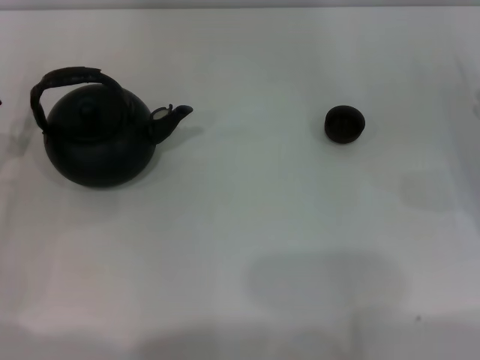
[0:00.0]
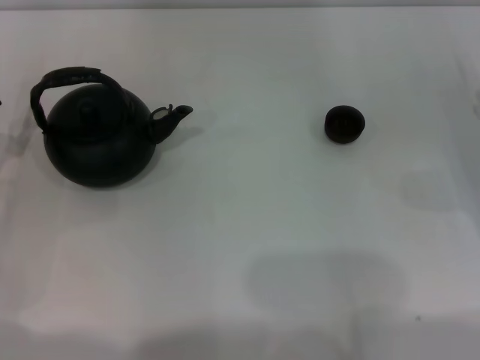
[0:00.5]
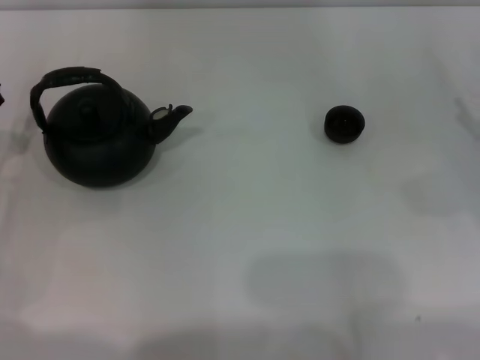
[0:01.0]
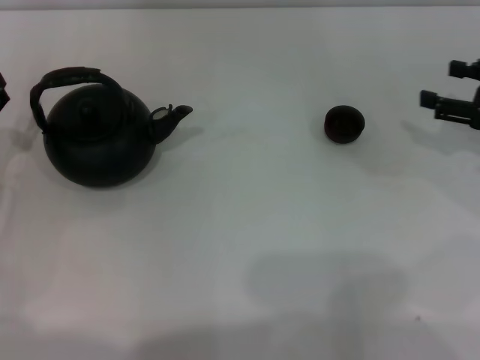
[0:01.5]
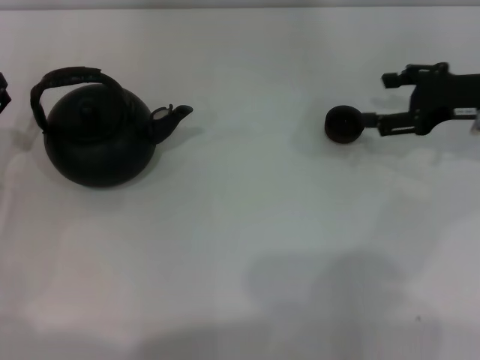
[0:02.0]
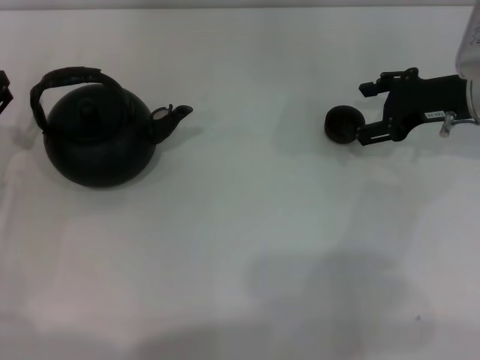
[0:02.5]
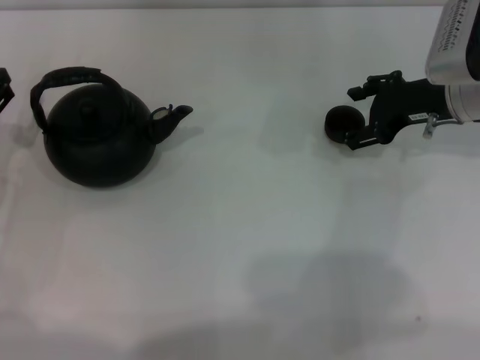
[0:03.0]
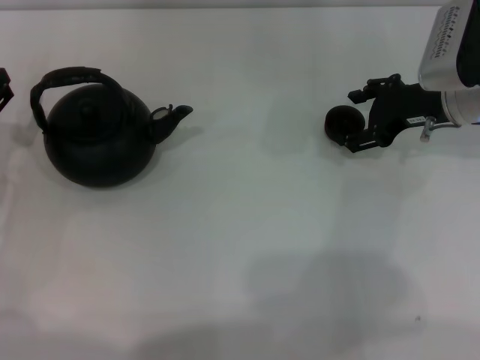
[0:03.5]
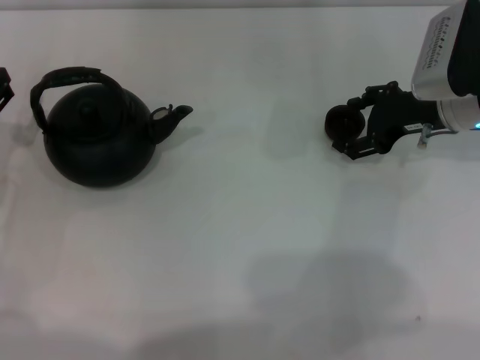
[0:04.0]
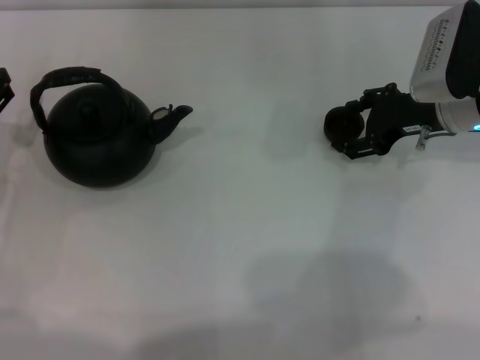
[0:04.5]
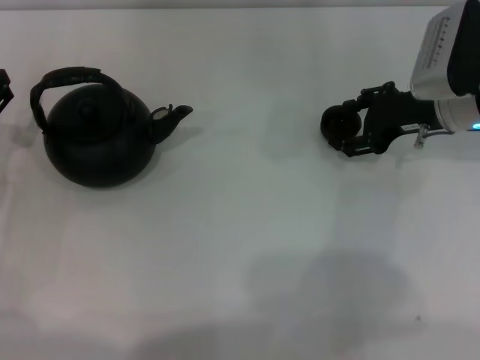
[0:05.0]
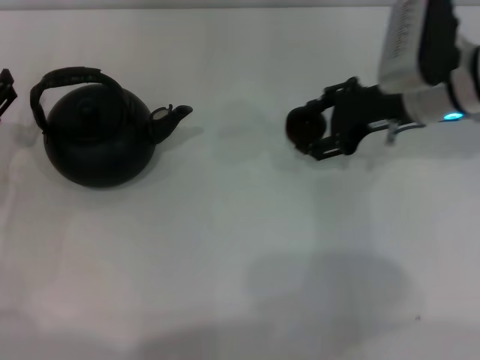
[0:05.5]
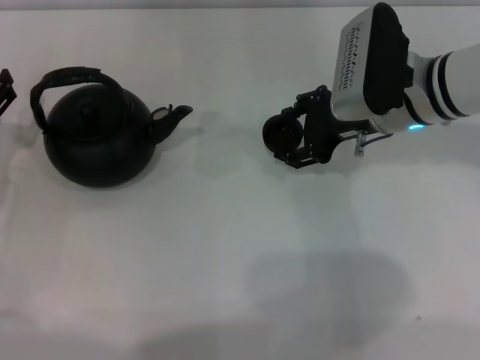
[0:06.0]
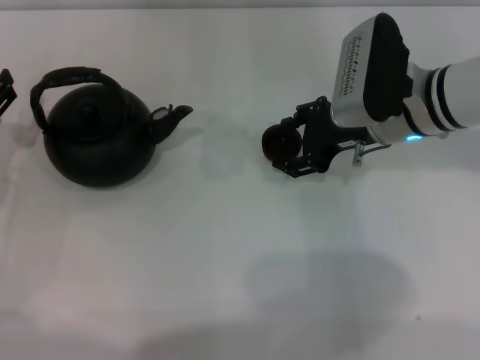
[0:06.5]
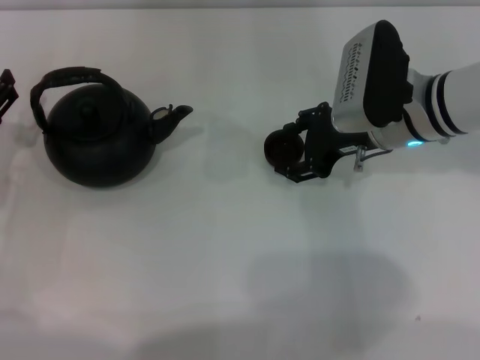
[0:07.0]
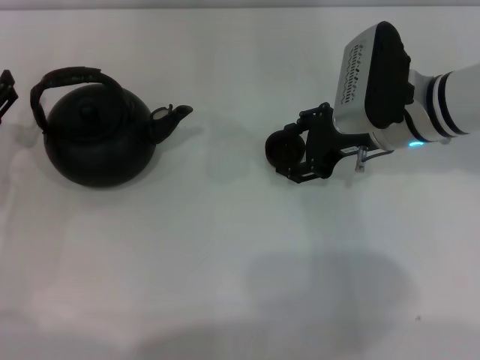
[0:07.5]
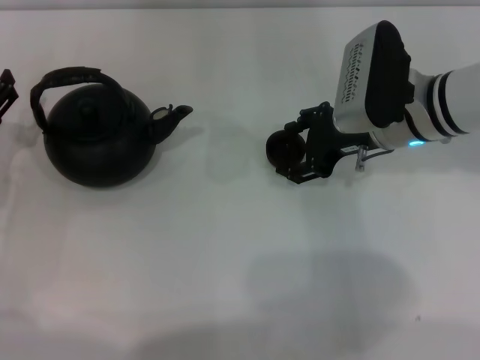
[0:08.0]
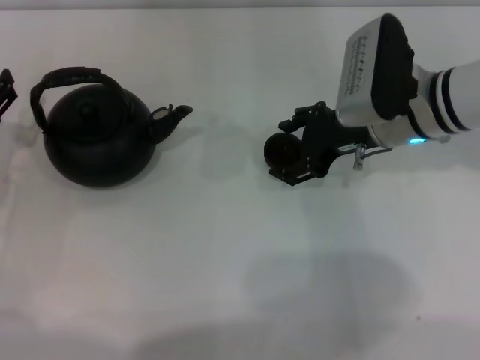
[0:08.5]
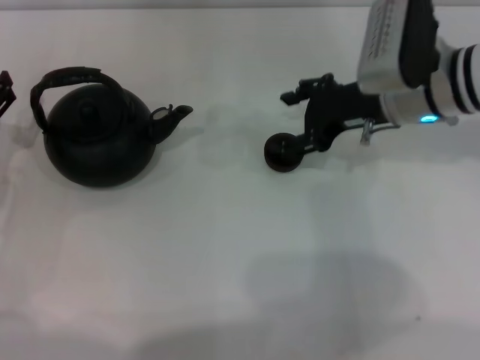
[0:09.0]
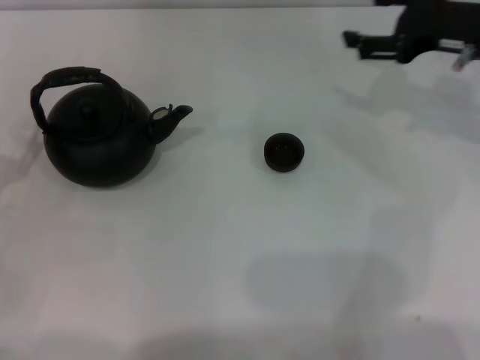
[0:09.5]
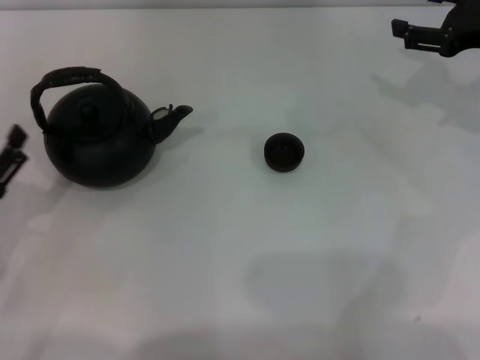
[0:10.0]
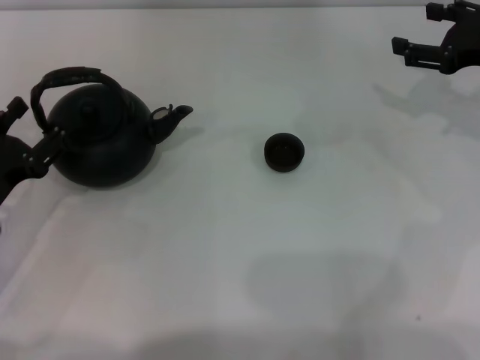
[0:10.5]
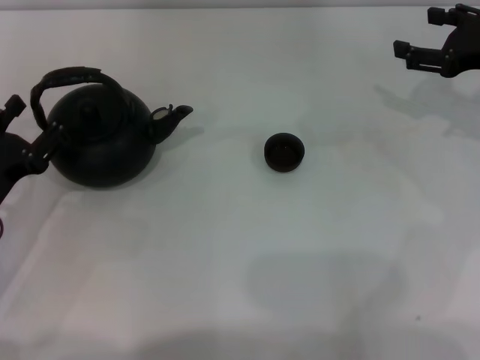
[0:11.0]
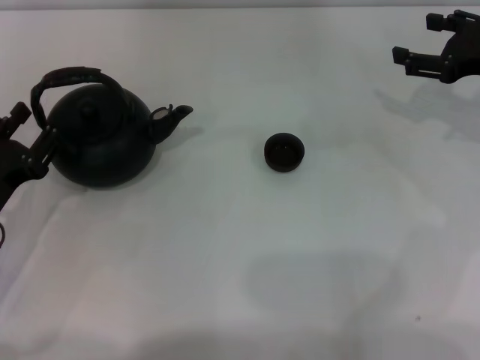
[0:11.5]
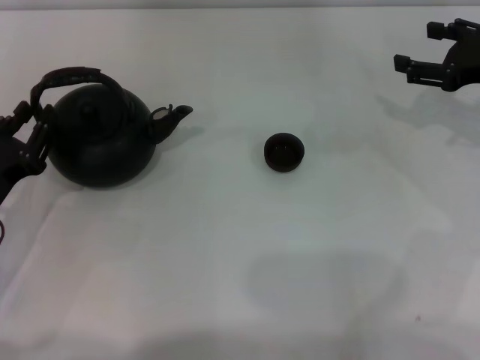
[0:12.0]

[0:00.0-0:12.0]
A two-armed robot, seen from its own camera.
Task of the whole recording: Grasp the handle of the teapot with one hand and pour tea into the teacup.
Step, 0:00.0 to 0:05.0: Pick up the teacup with the right gripper.
Step, 0:05.5 to 0:08.5: Place the teacup in the center of view with the right gripper.
0:00.0 to 0:02.0: The right gripper travels upward, forward and to the left by some 15 cm.
0:02.0 to 0:04.0: The right gripper travels to the left by roughly 5 cm.
0:04.0 to 0:06.0: The right gripper travels to the left by some 10 cm.
0:06.0 to 0:08.0: The grippers move only a little.
0:08.0 to 0:10.0: The left gripper moves backward, roughly 10 cm; the right gripper shifts about 15 cm to the right.
0:10.0 to 0:12.0: The left gripper closes its fingers.

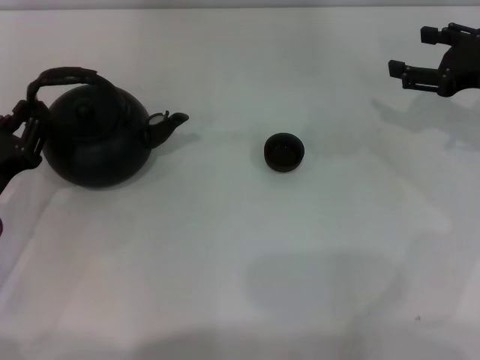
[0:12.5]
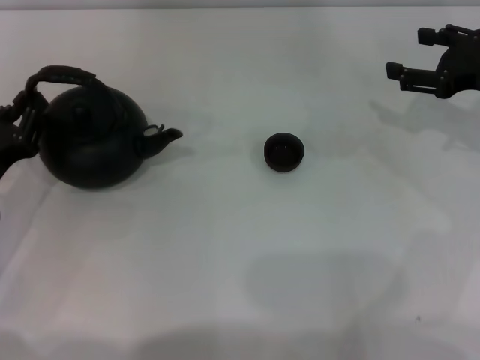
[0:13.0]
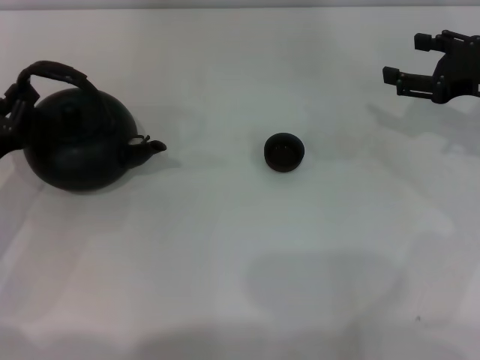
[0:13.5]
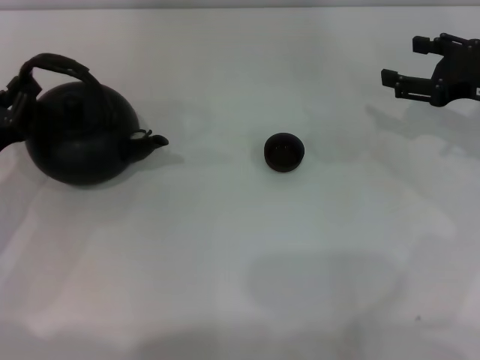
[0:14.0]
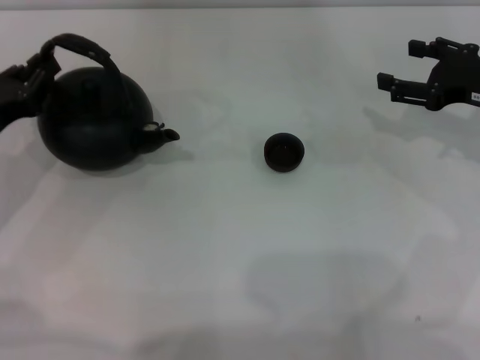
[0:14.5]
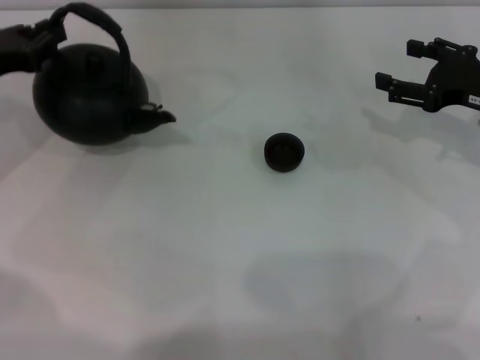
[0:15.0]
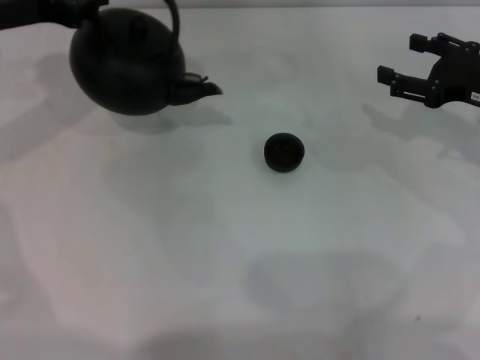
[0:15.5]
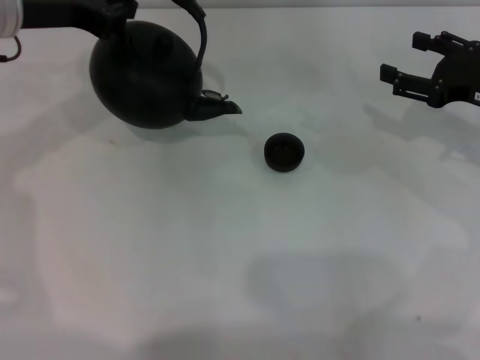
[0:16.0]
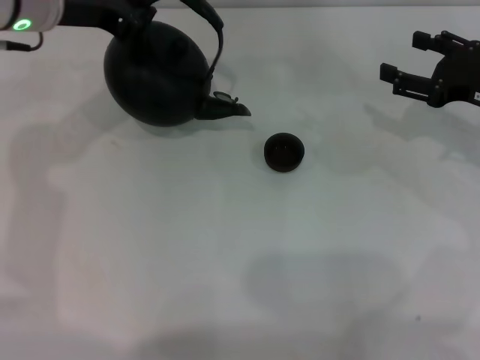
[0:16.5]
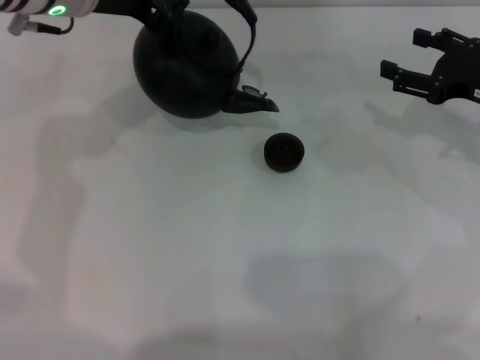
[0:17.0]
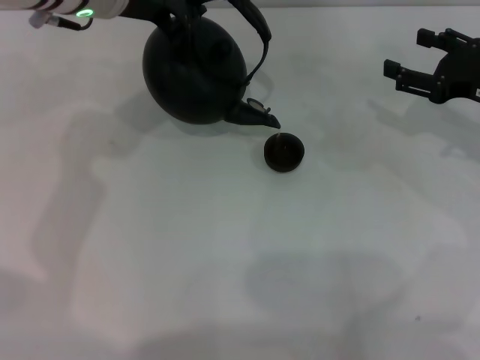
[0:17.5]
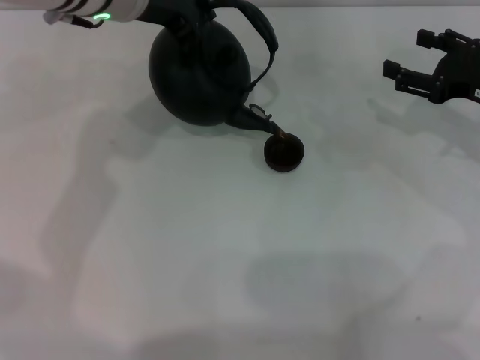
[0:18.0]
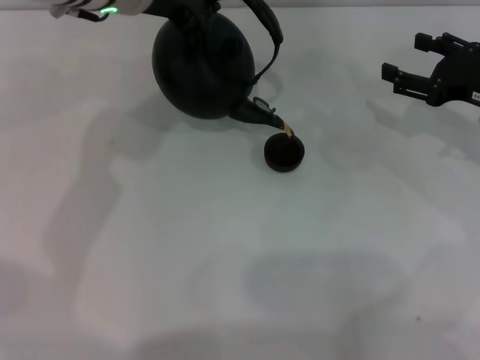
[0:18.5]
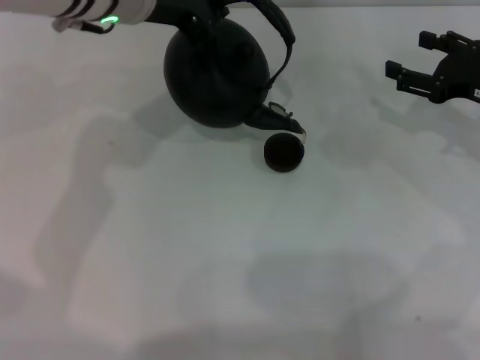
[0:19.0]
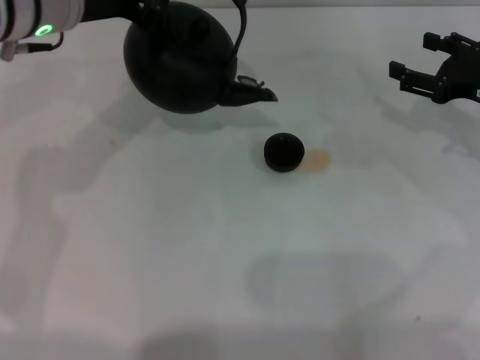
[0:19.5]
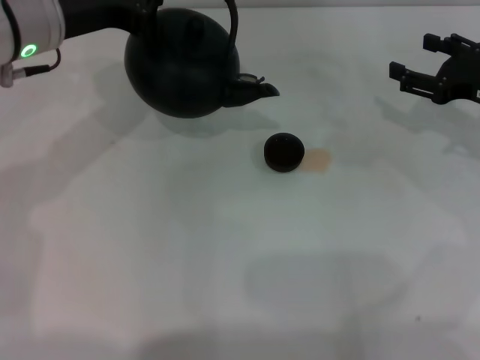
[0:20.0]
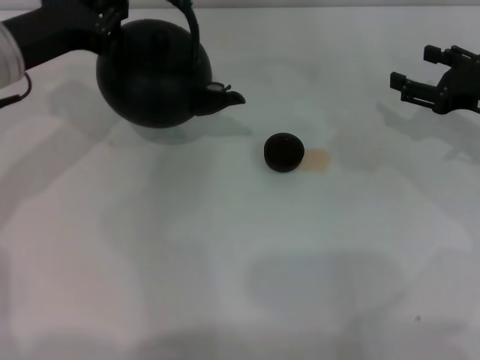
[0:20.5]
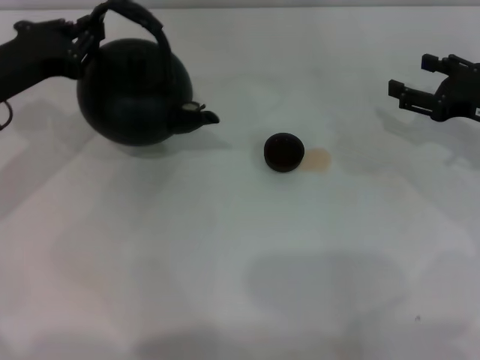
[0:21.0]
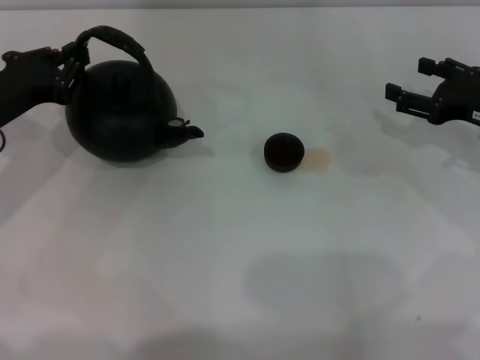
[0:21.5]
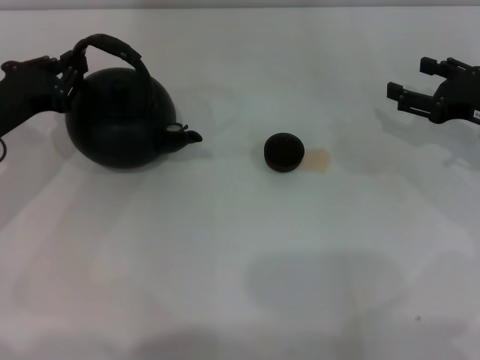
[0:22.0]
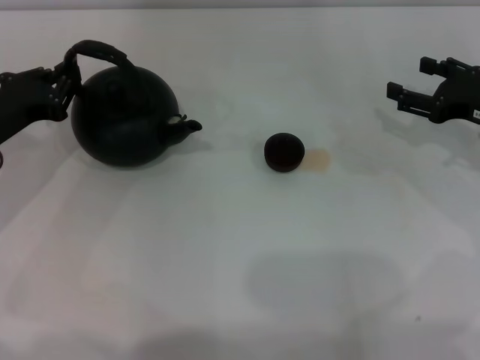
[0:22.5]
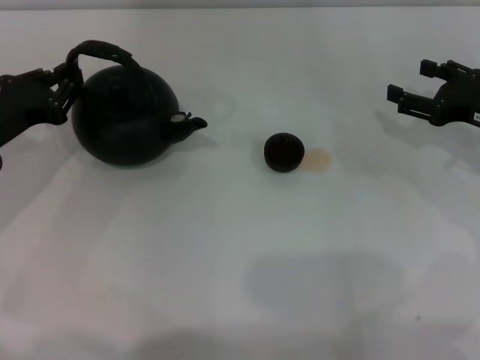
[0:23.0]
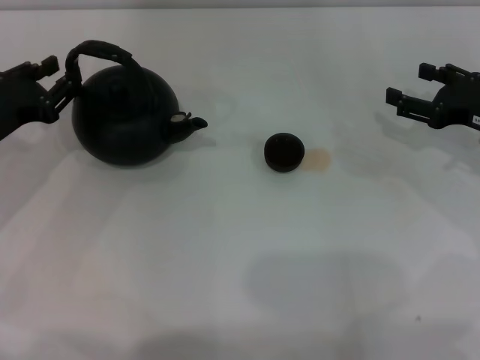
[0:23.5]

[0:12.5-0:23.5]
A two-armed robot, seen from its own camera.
Task of the whole recording: Grasp the handle of the teapot with one hand and pour tea into the teacup.
Step, 0:12.5 to 0:15.0: Pick up the teapot with the left gripper.
Step, 0:15.5 to 0:19.0: Pour tea into the teacup with the left gripper.
0:12.5 to 0:14.5: The left gripper goes roughly 5 cm forward.
0:14.5 to 0:16.0: The left gripper heads upward, forward and to the right, covering some 20 cm.
0:16.0 to 0:18.0: The left gripper shifts some 10 cm to the right.
0:18.0 to 0:20.0: The left gripper is displaced to the left by approximately 10 cm.
0:20.0 to 0:21.5: The left gripper heads downward and to the left, covering roughly 15 cm.
0:21.5 to 0:23.5: The grippers stay close to where they were, moving slightly.

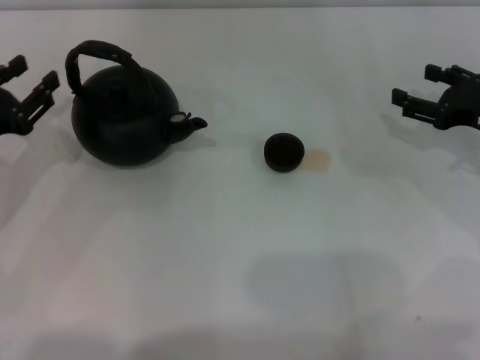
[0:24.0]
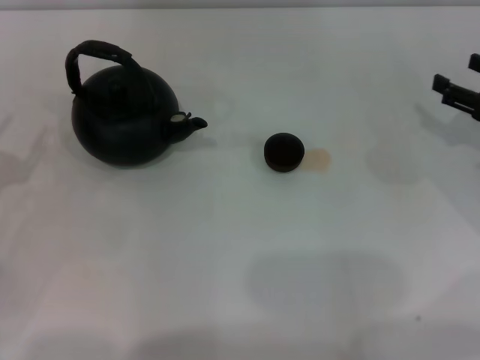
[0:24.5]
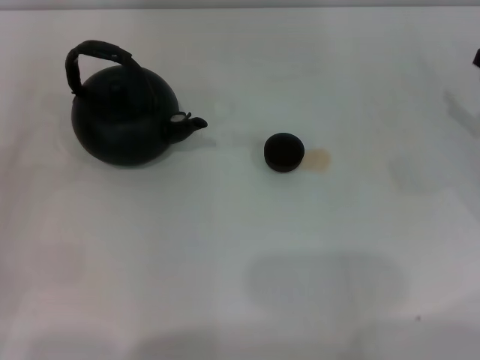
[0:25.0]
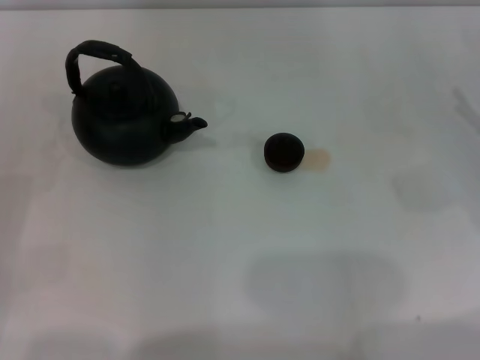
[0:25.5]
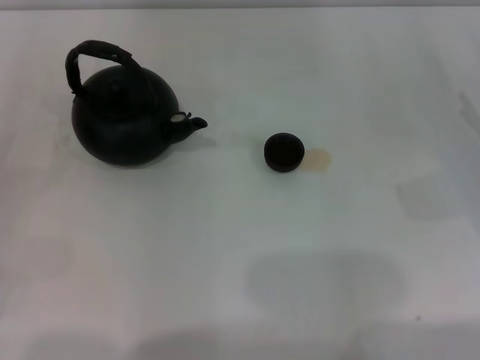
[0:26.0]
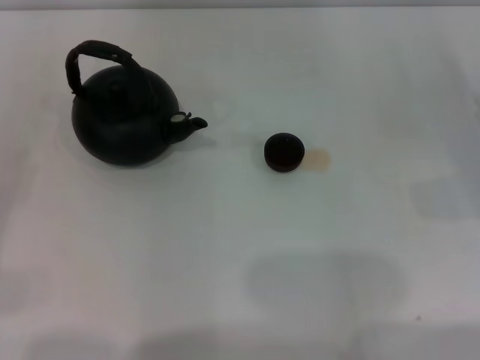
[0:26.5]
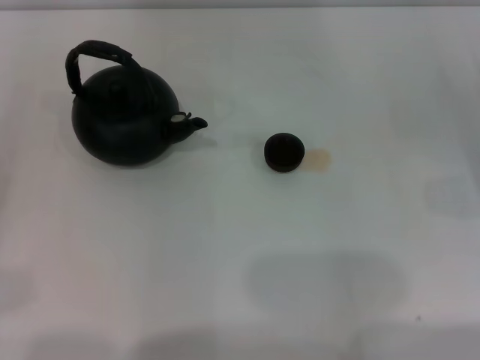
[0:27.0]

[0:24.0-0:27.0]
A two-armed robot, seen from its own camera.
Task of the whole recording: Grasp the handle of the teapot with one hand and pour tea into the teacup.
0:24.0 to 0:25.5: The right gripper changes place by approximately 5 cm. Meanwhile the left gripper shifts some 10 cm backward and to the left, and opens up.
